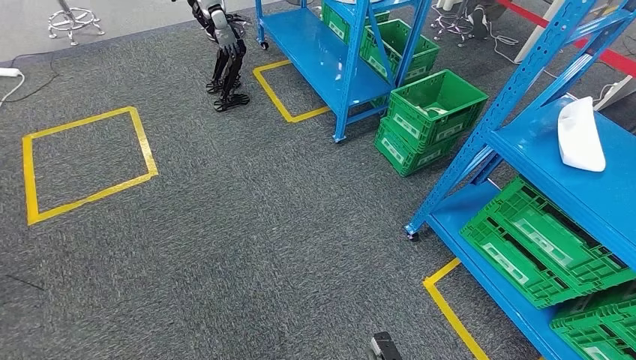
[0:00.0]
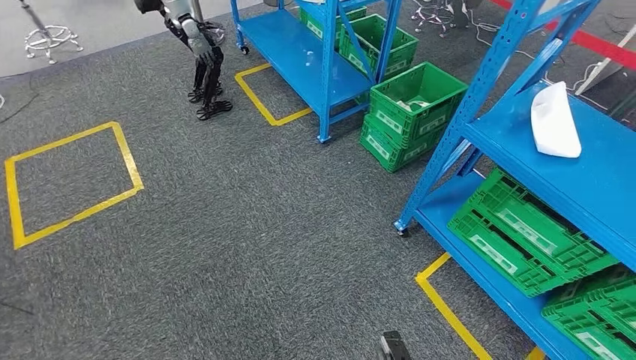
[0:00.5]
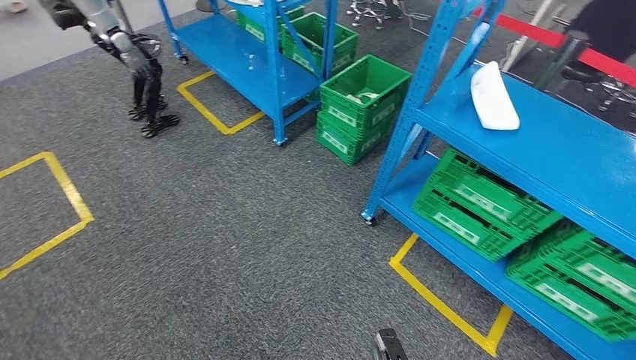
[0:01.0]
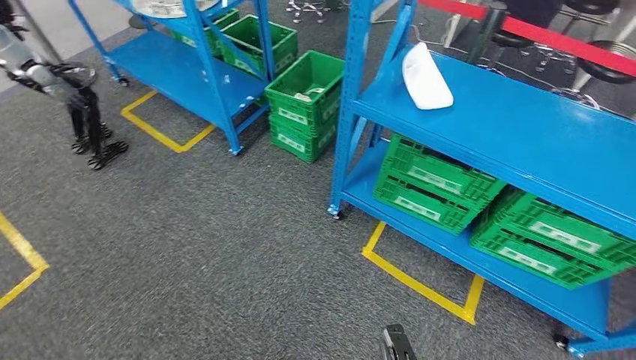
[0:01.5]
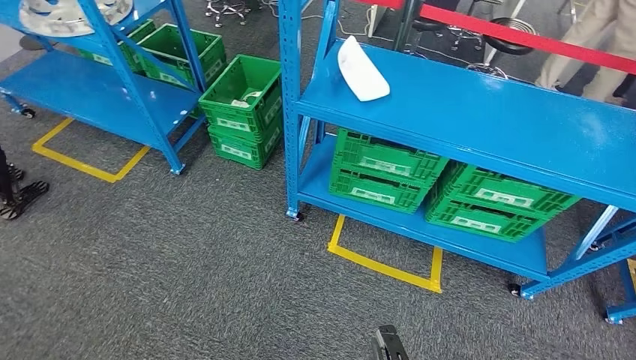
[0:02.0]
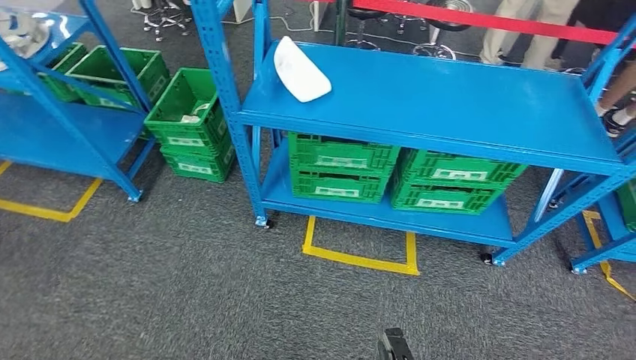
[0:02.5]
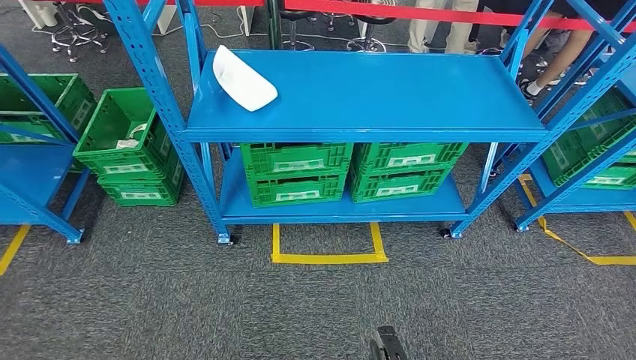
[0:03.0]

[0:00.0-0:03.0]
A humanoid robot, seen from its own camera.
Step, 0:00.0 to 0:03.0: Return to the initial position at the workbench.
